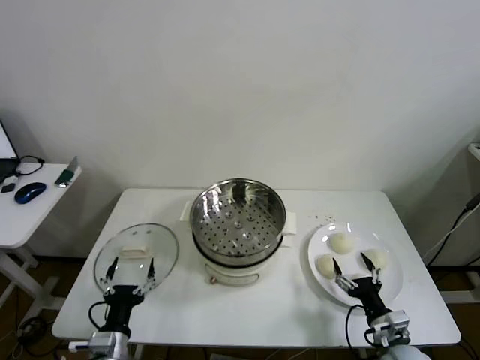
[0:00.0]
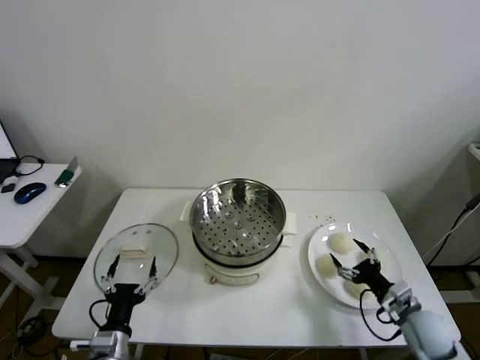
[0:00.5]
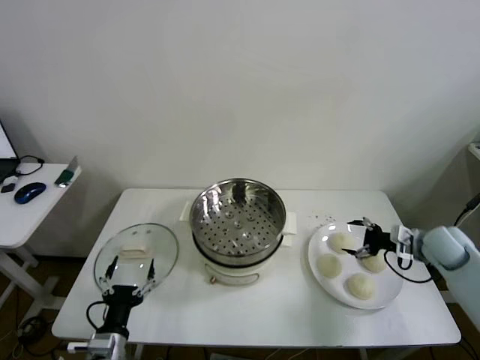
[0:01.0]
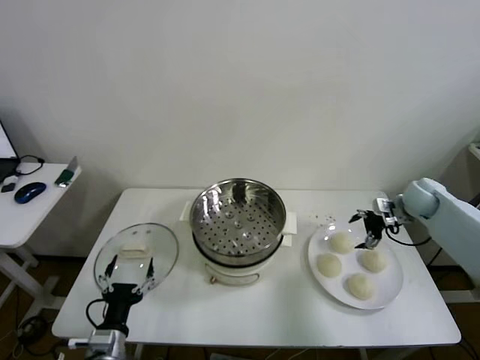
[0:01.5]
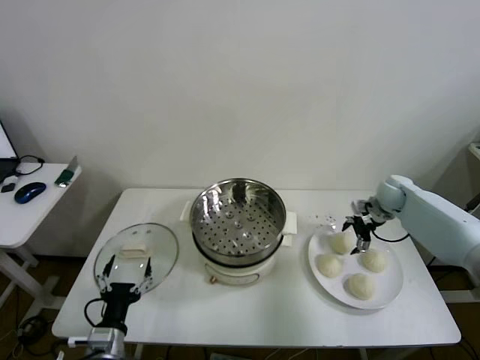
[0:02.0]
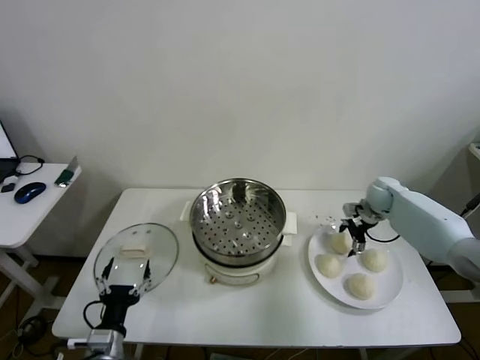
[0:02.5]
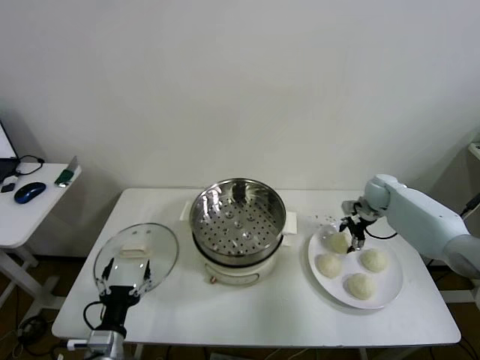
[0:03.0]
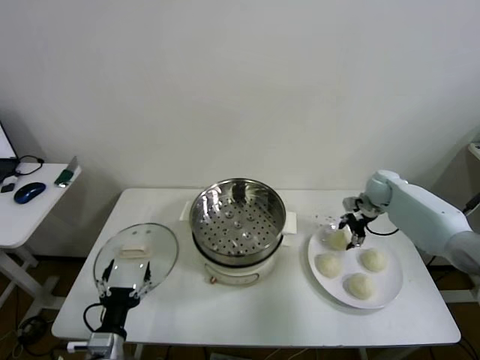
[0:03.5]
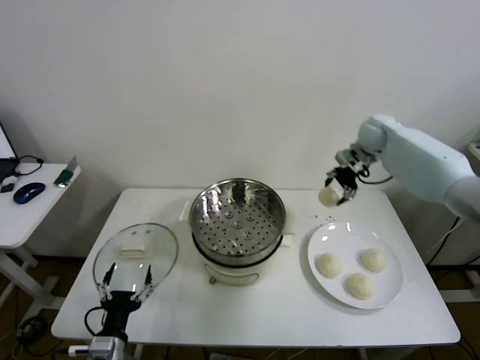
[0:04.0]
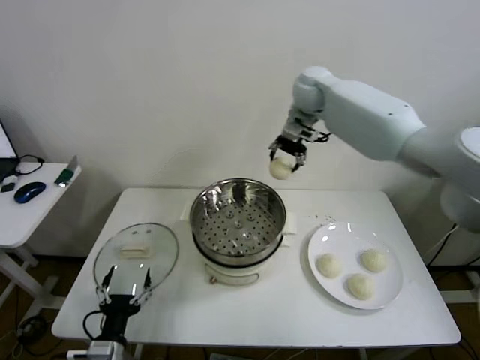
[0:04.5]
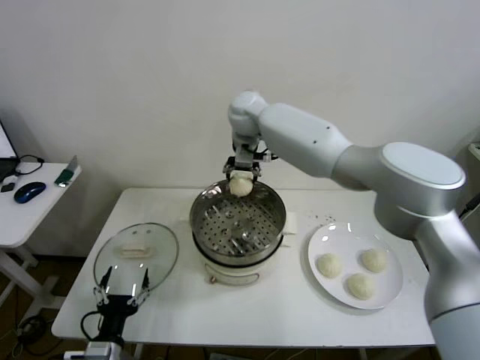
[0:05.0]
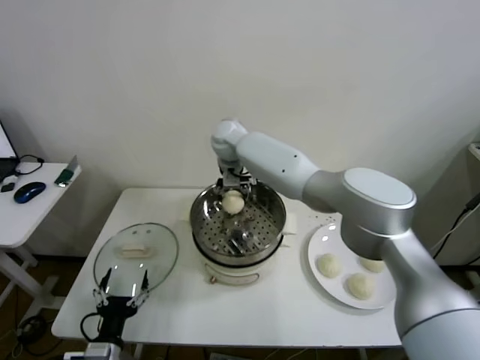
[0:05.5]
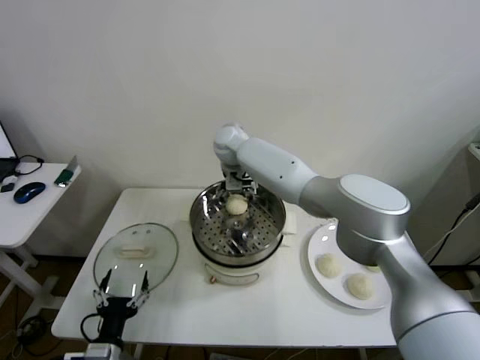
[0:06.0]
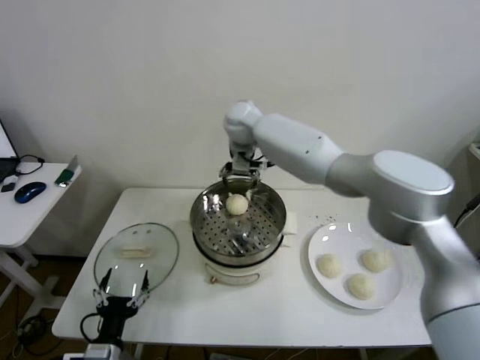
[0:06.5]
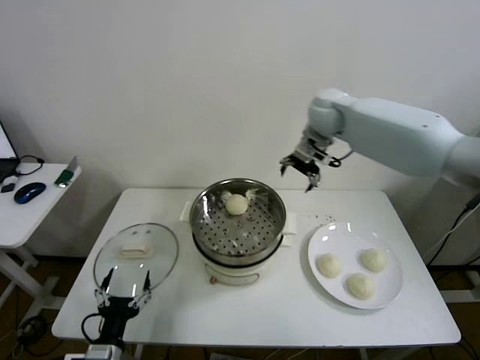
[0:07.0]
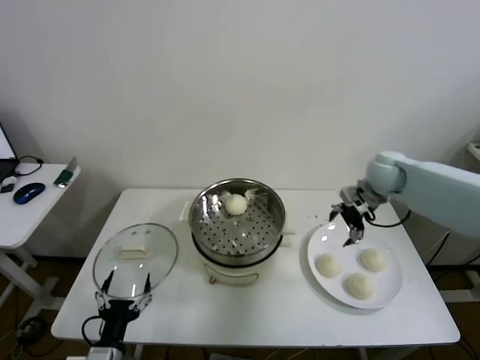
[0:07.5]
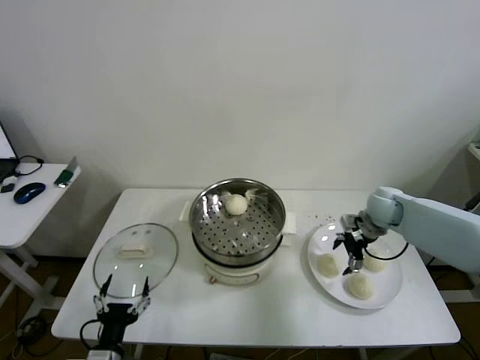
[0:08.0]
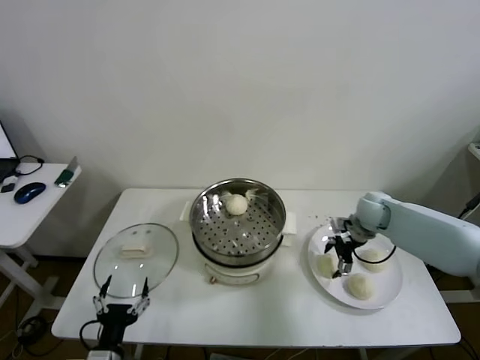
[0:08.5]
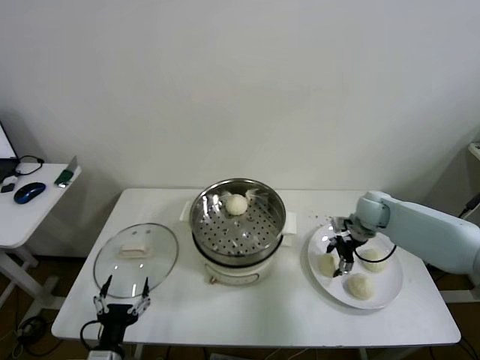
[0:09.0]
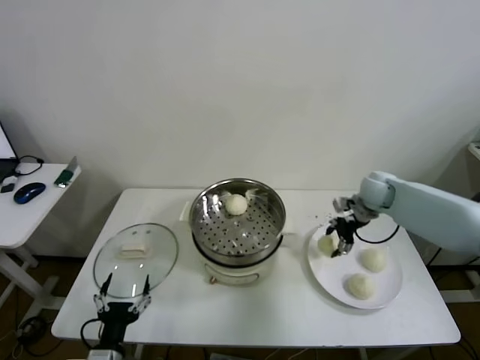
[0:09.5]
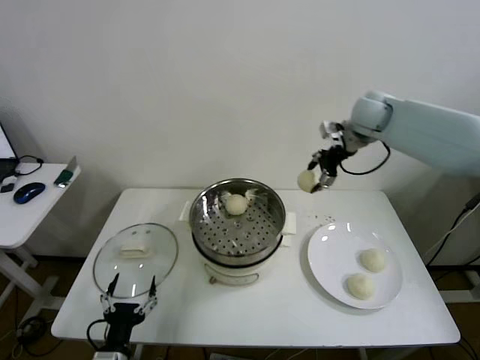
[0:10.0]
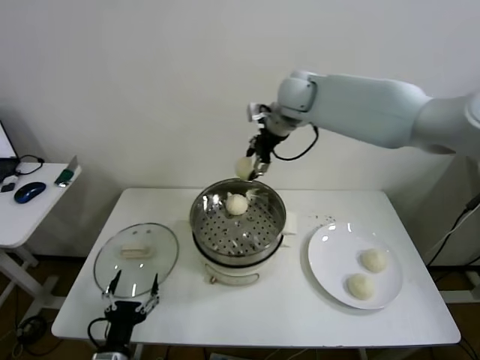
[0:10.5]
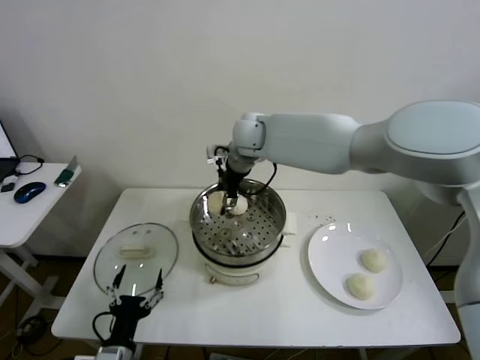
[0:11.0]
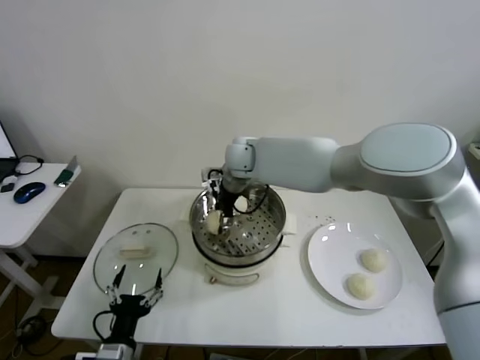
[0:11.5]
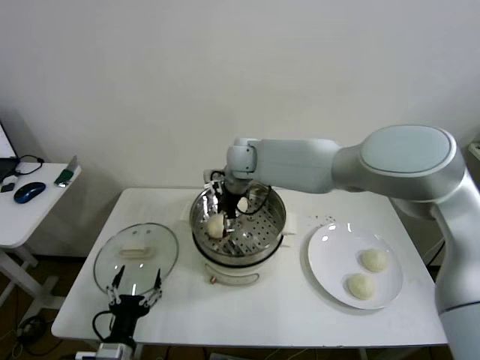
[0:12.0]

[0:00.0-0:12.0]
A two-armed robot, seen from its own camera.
Step, 0:00.0 to 0:03.0: Grasp the baozi in the plate with right gripper.
Step, 0:03.5 to 0:06.0: Place the baozi on the steamer with right gripper.
Step, 0:06.5 to 0:09.0: Grasp the baozi in the plate with right gripper.
Step, 0:09.5 to 0:12.0: Place the baozi on the steamer with right gripper.
0:02.0 to 0:04.0: The right gripper heads upward, to the left and forward, covering roughly 25 cm, and closes its fingers.
0:04.0 to 0:06.0: The right gripper moves to the left, roughly 35 cm, and opens up.
0:06.0 to 0:08.0: The right gripper heads to the right, covering some 40 cm.
0:08.0 to 0:10.0: The right gripper travels upward by approximately 25 cm, and closes its fingers.
0:10.0 to 0:12.0: The right gripper shifts some 30 cm to the left and downward, and opens its fingers.

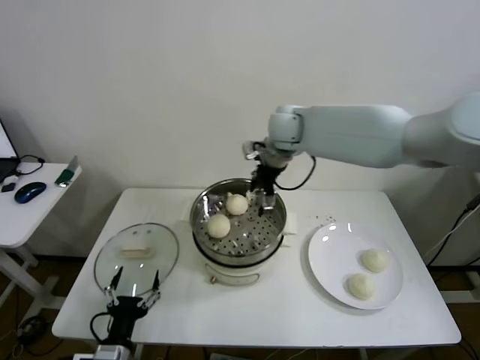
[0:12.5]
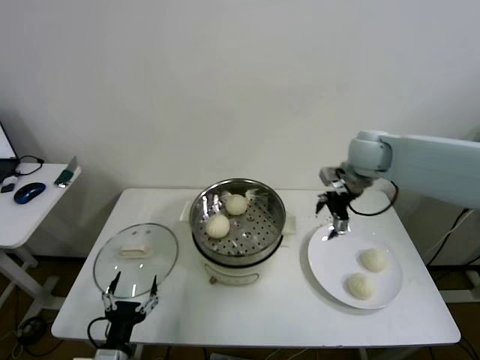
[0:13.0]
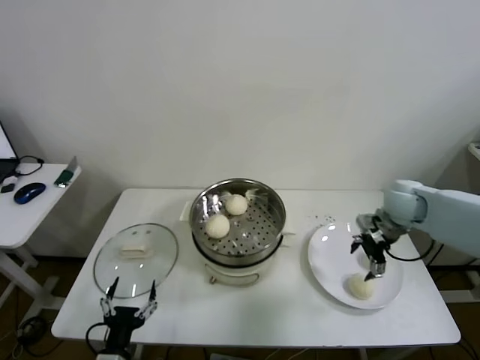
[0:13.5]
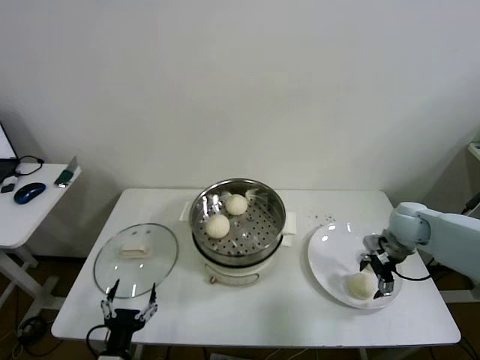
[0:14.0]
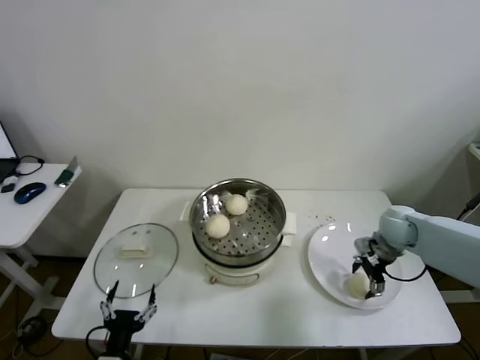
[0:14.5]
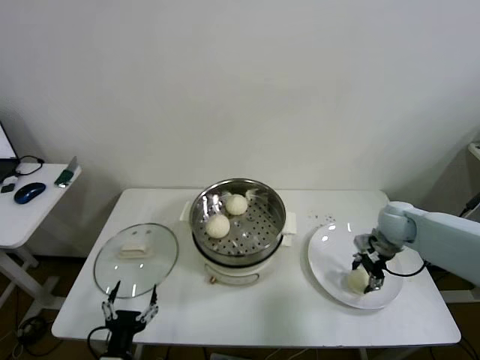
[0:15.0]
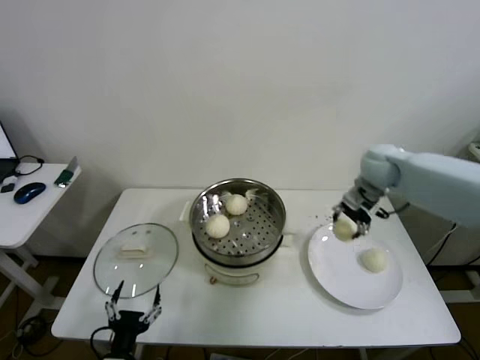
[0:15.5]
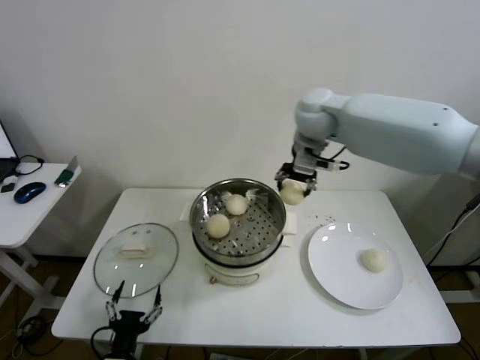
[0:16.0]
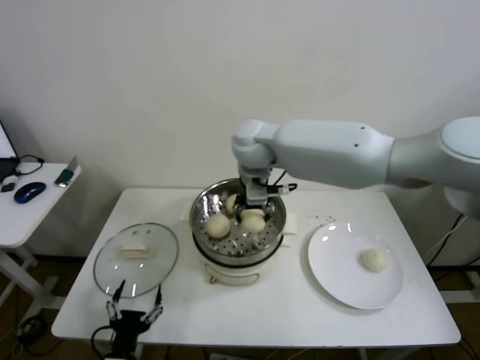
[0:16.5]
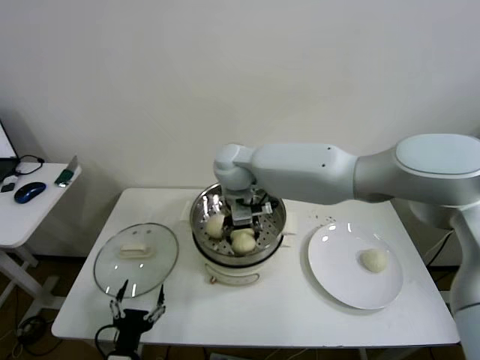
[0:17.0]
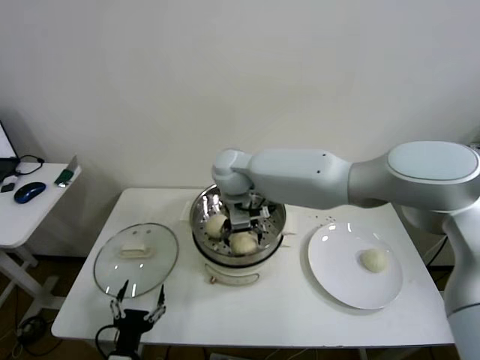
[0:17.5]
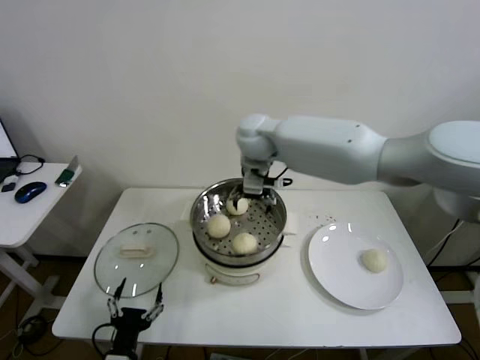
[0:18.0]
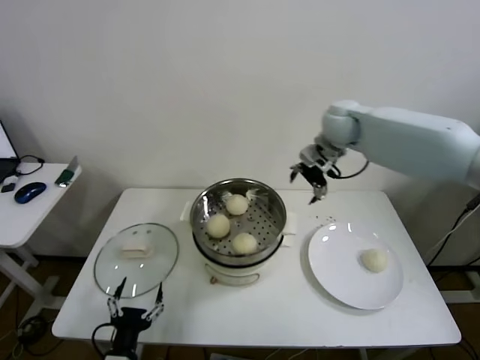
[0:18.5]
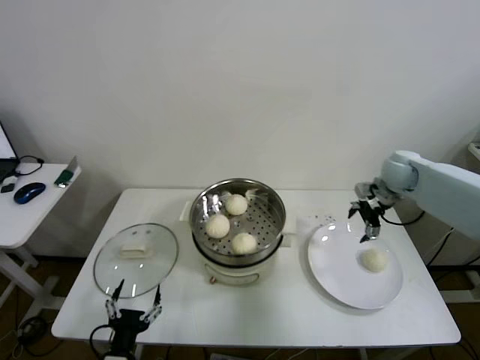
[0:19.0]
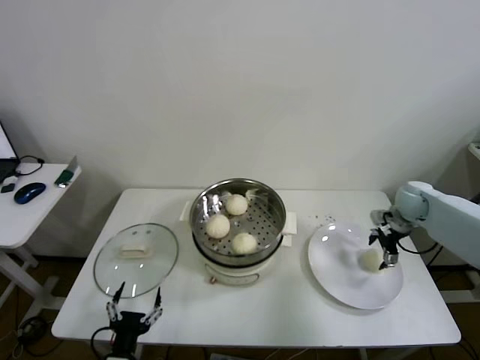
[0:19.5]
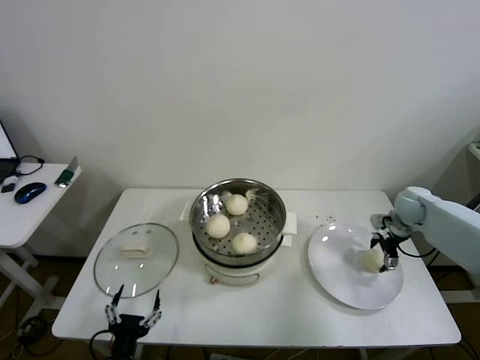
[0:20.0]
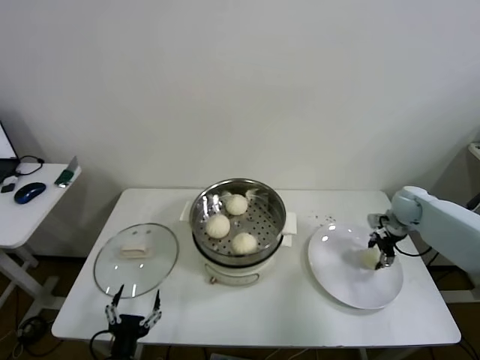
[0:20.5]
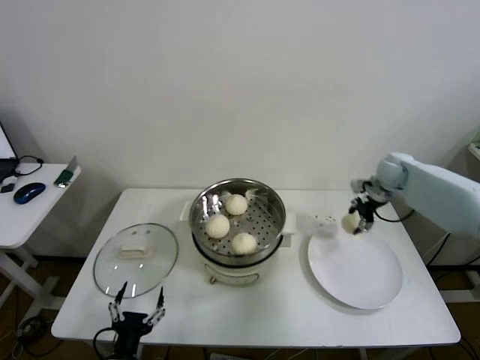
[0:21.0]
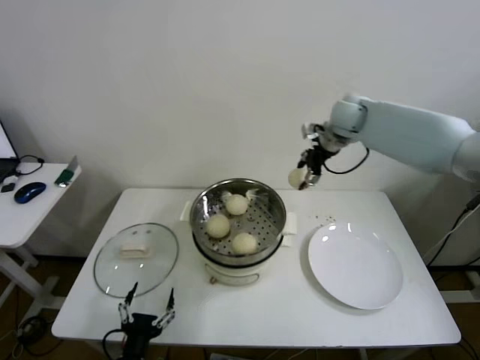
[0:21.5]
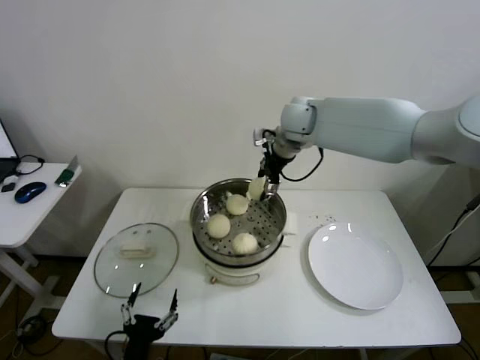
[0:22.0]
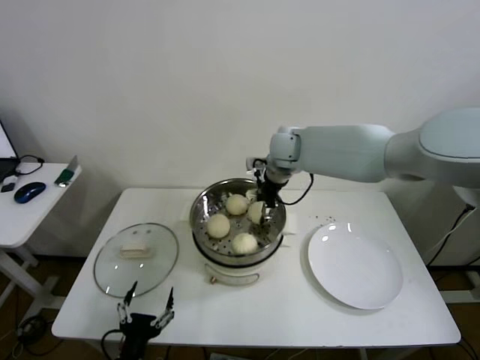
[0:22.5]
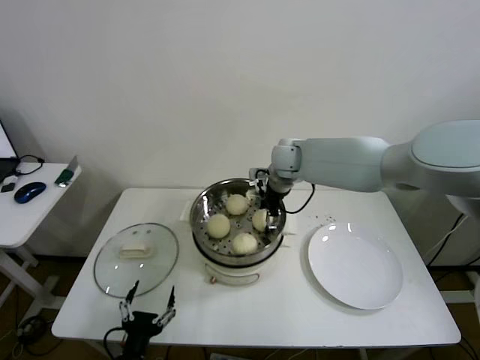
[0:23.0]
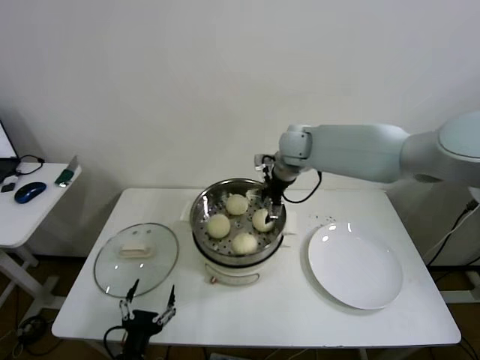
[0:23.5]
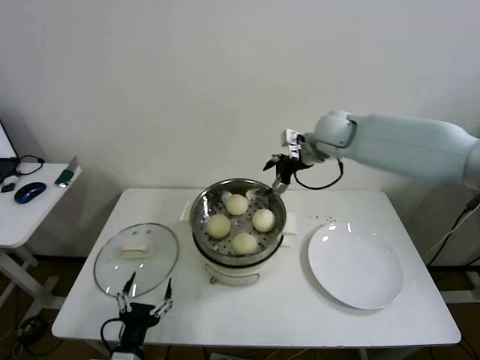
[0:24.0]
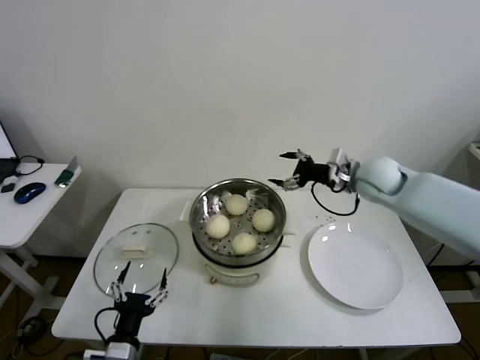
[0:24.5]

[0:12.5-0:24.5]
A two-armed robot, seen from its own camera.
Step, 0:12.5 to 0:14.5: Grasp the baozi in the plate with right gripper.
Step, 0:15.0 to 0:17.5: Place the baozi on the steamer with right gripper.
Step, 0:18.0 to 0:20.0: Grasp the baozi in the plate with right gripper.
Step, 0:20.5 to 0:23.0: Place the baozi on the steamer with right gripper.
0:12.5 to 0:14.5: The right gripper moves to the right, downward and backward, roughly 35 cm.
0:14.5 to 0:16.5: The right gripper travels to the left and upward by about 40 cm, and closes.
0:16.5 to 0:18.5: The right gripper moves to the right, roughly 20 cm, and opens its fingers.
0:18.5 to 0:20.5: The right gripper is displaced downward and to the right by about 30 cm, and closes up.
0:20.5 to 0:22.5: The right gripper moves to the left and upward, roughly 35 cm.
0:22.5 to 0:24.5: The right gripper goes roughly 20 cm to the right and backward, and opens up.

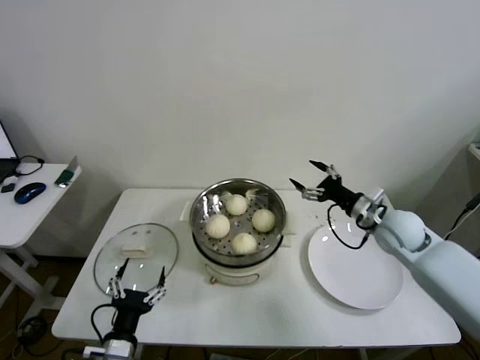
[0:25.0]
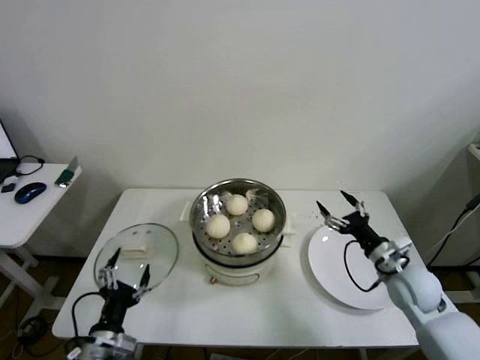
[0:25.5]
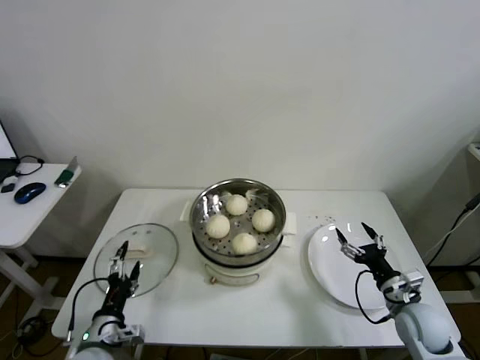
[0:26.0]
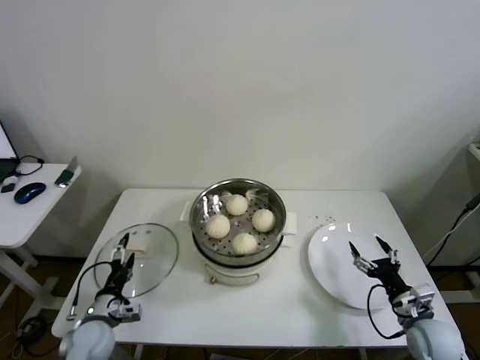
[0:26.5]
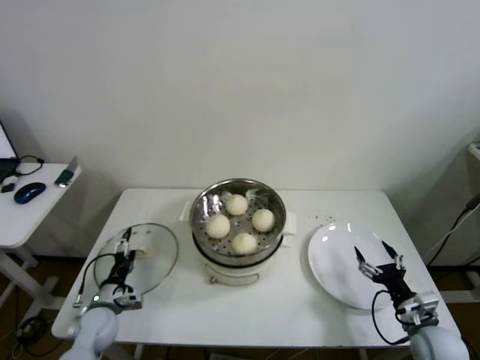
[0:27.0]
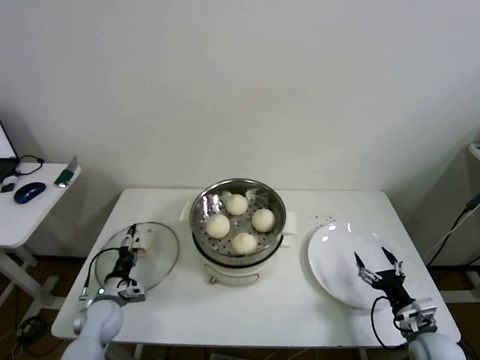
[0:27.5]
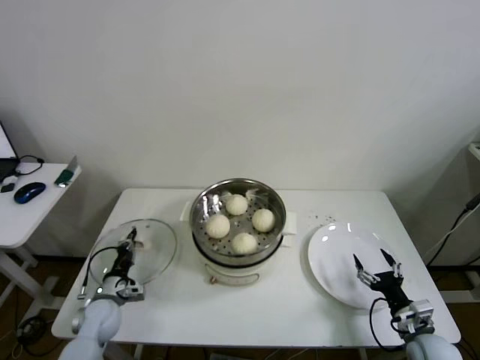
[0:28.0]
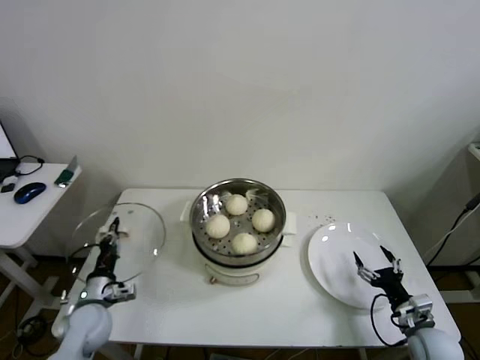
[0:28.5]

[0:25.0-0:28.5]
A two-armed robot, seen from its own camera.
Step, 0:25.0 to 0:28.0: Grasp the pot lid with left gripper.
0:25.0 to 0:27.0: The right gripper shifts approximately 25 cm backward and downward. The left gripper heads forward, to the left and downward, covering roughly 20 cm.
0:27.0 to 0:28.5: The left gripper closes its fingers.
